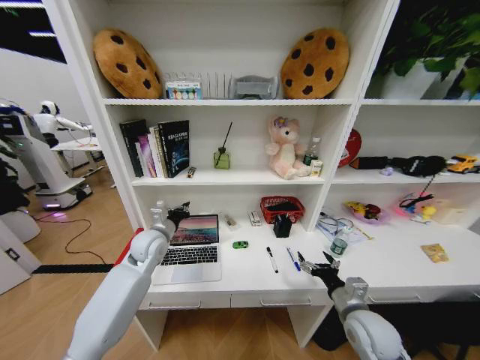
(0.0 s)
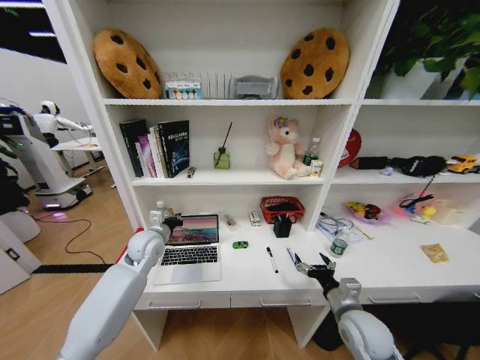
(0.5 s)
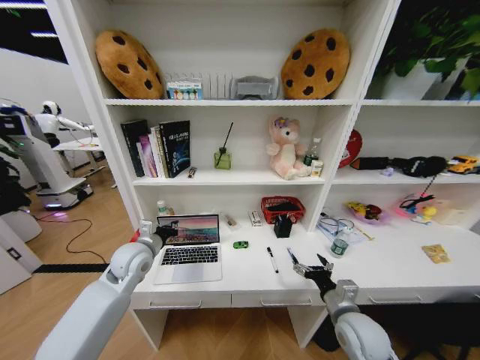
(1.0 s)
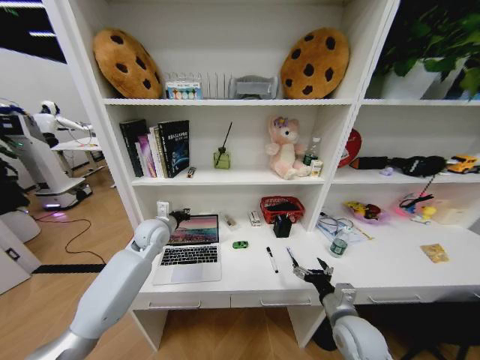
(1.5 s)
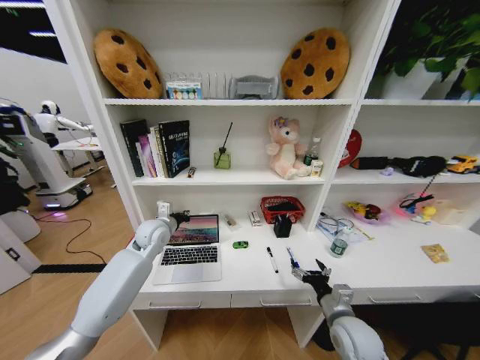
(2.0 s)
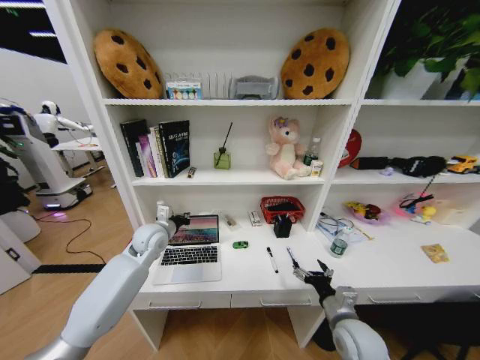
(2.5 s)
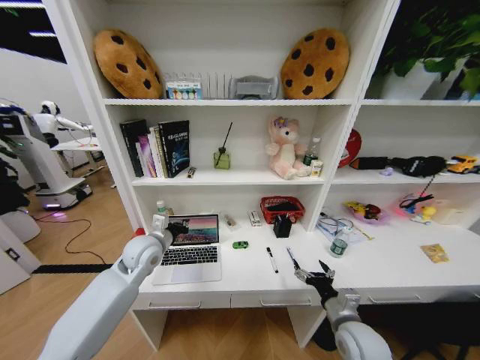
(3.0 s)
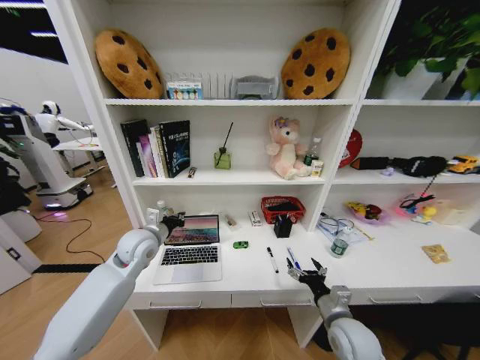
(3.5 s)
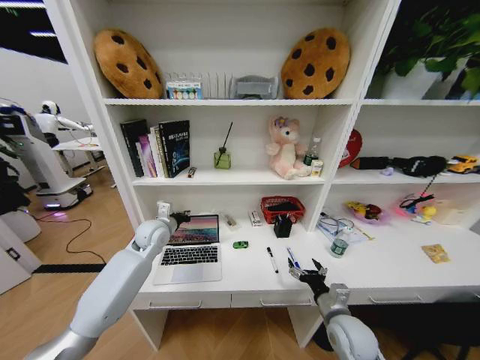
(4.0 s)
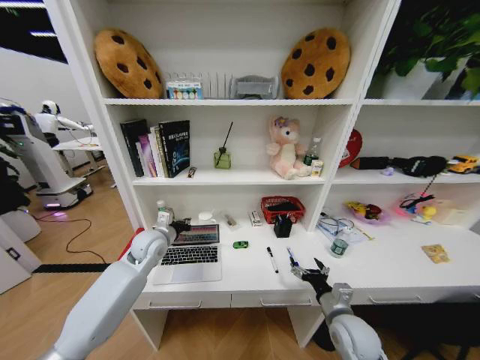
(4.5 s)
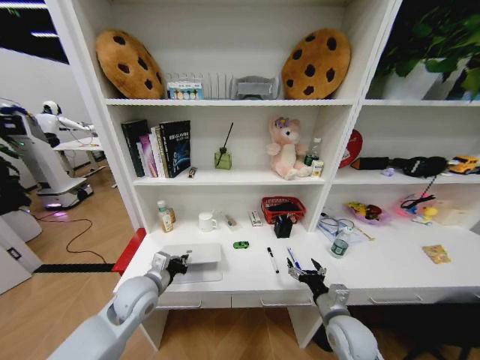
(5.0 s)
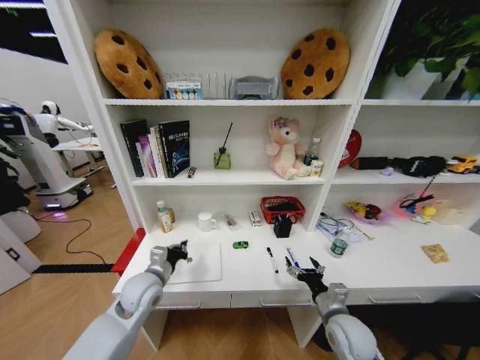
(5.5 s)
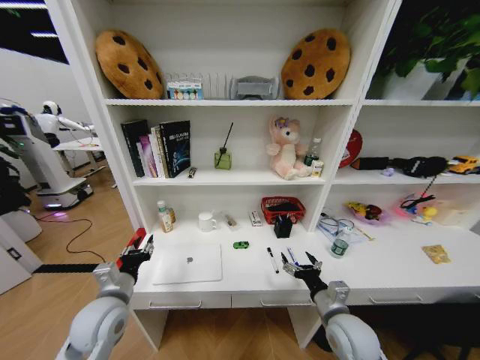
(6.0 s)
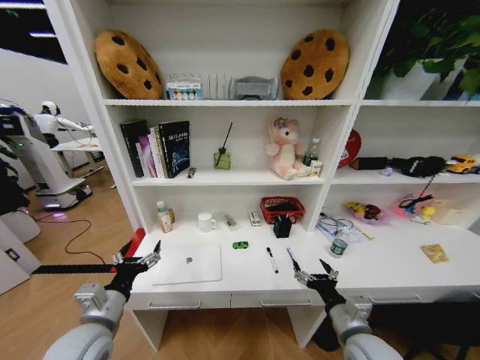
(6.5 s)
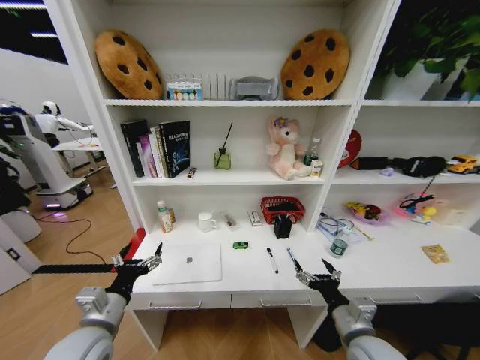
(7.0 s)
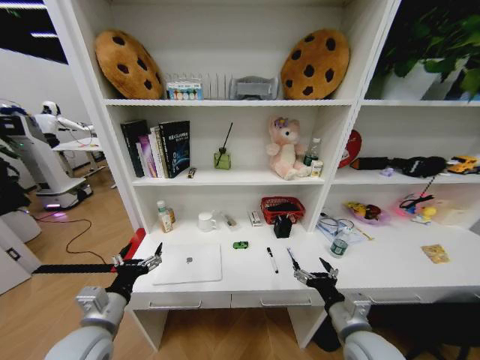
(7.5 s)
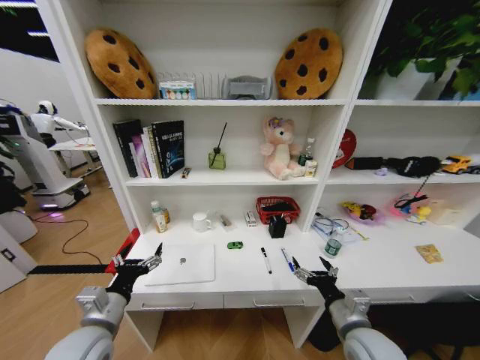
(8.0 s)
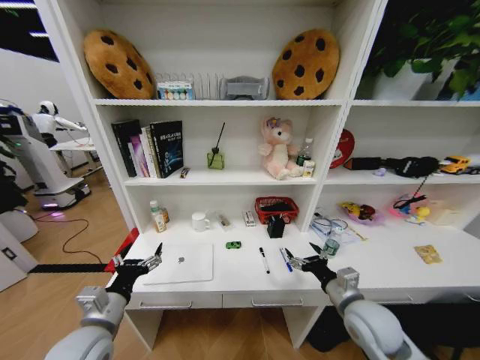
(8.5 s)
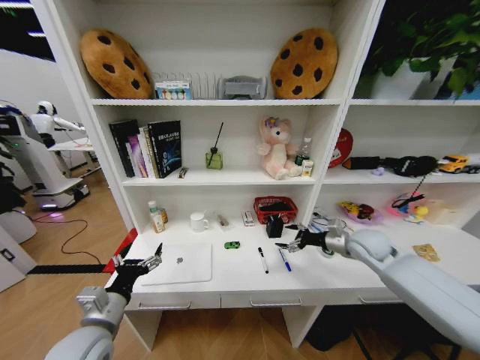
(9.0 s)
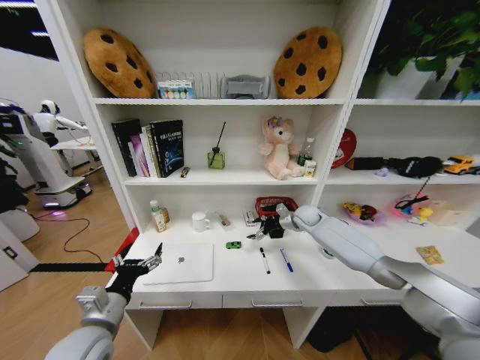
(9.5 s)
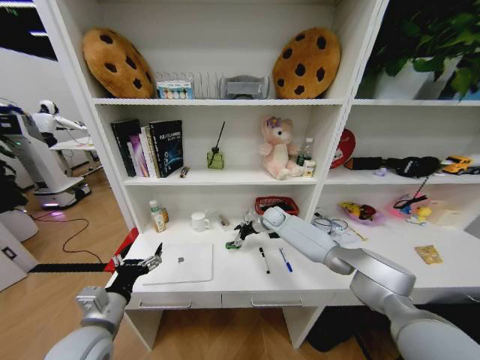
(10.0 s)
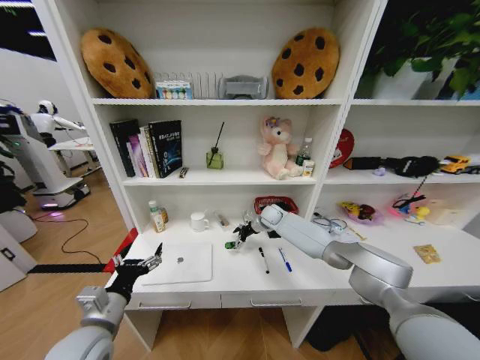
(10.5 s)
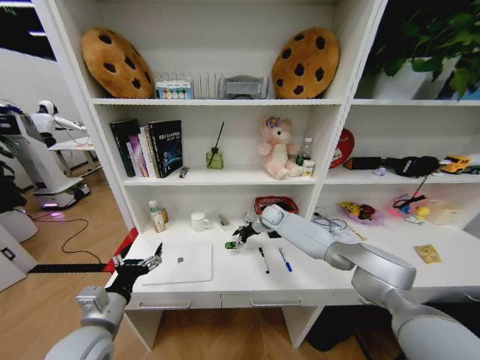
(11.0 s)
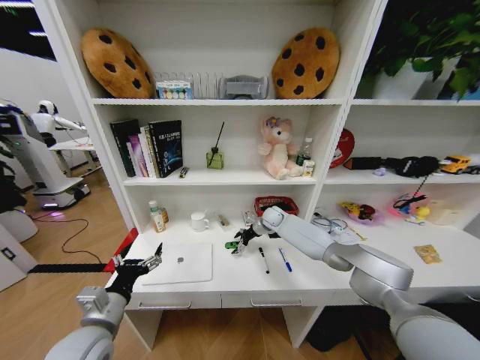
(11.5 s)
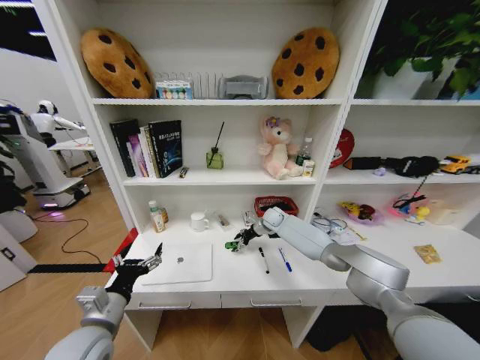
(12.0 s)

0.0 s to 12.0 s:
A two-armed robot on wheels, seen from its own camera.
Task of the whole recording: Organize the objects on the table.
0.0 to 2.0 s: The grippers make only small movements.
4.0 to 6.0 s: The left gripper shifts some 20 cm backward, and opens up.
6.0 to 8.0 s: The left gripper is displaced backward by approximately 5 cm, and opens up.
8.0 to 10.0 s: The right gripper goes about 40 cm forward.
10.0 to 12.0 s: The grippers move only a little.

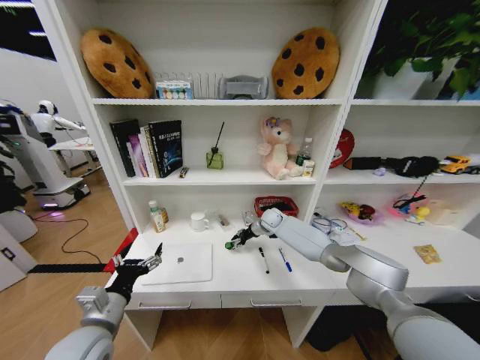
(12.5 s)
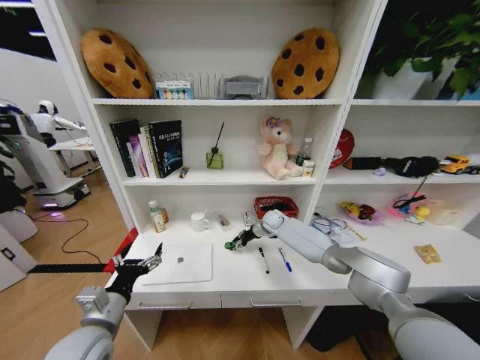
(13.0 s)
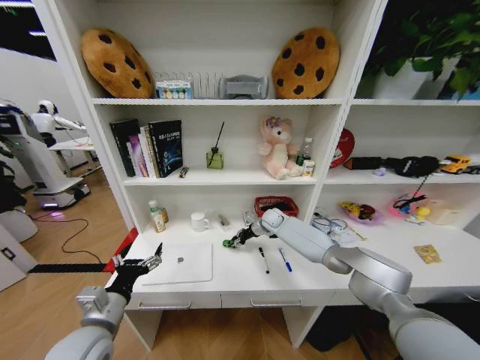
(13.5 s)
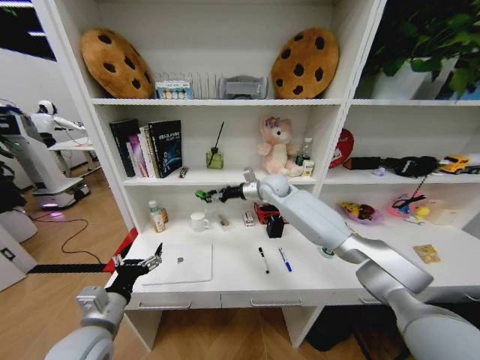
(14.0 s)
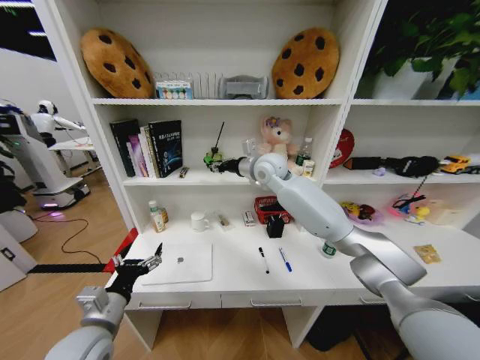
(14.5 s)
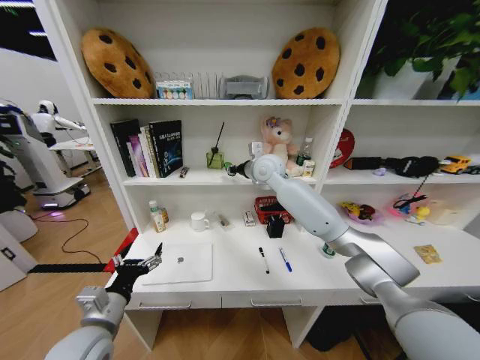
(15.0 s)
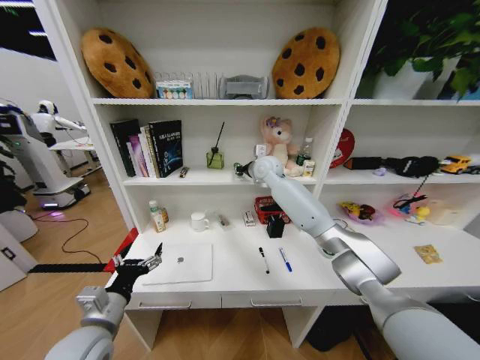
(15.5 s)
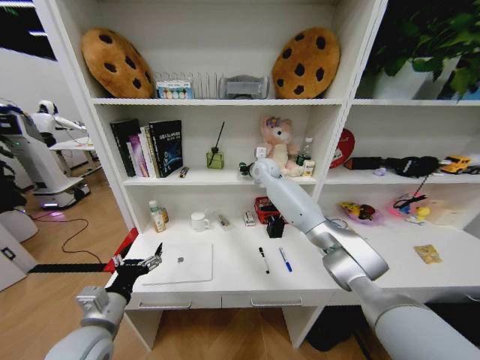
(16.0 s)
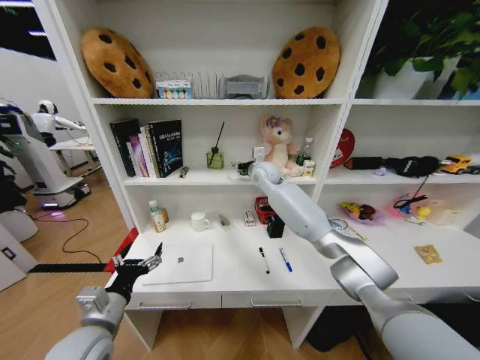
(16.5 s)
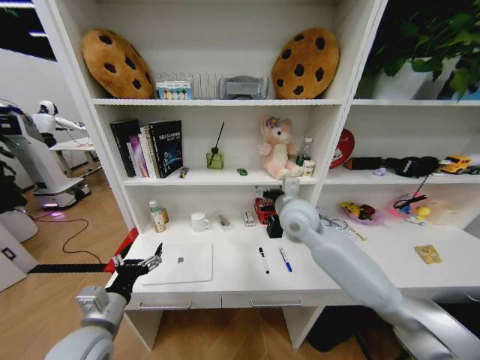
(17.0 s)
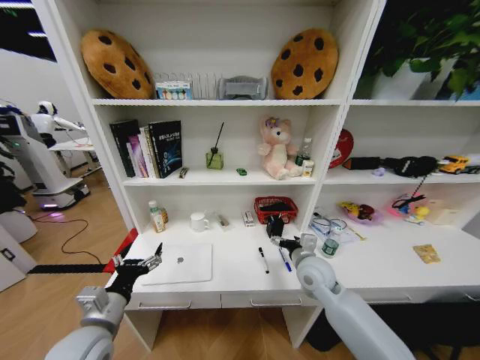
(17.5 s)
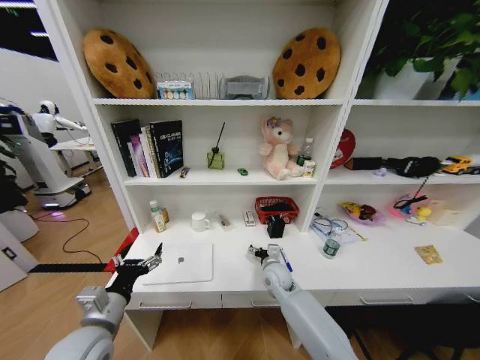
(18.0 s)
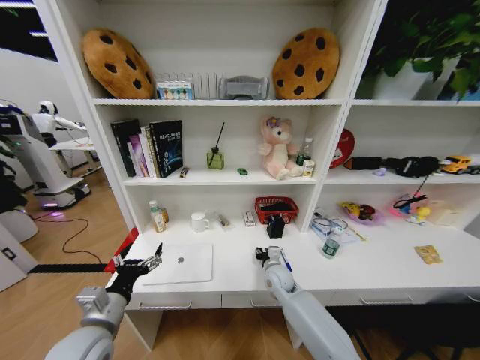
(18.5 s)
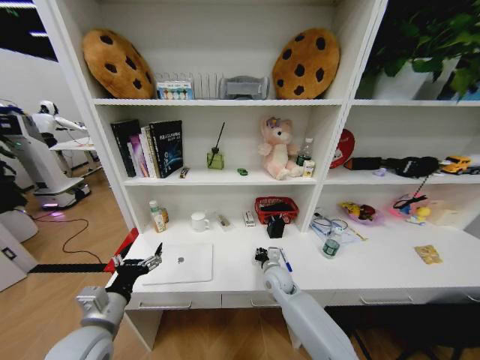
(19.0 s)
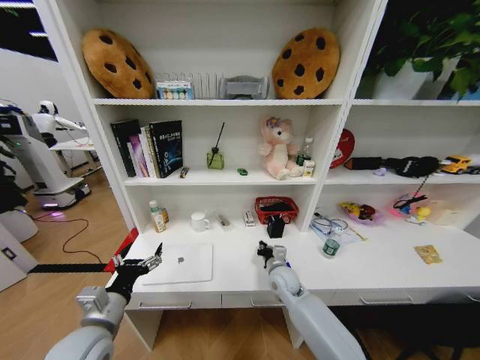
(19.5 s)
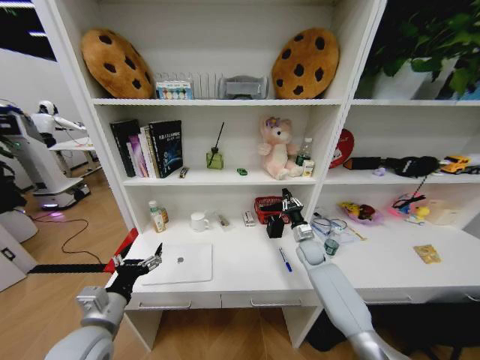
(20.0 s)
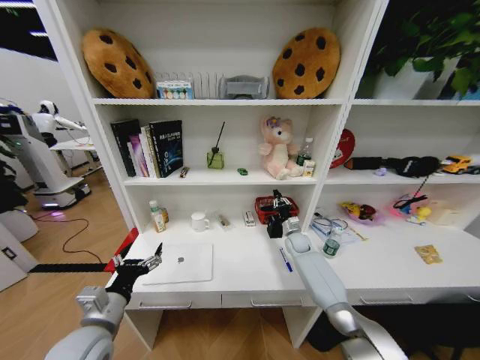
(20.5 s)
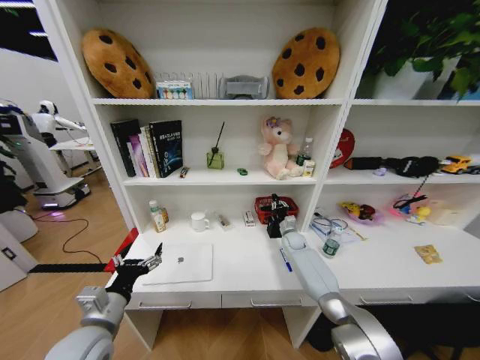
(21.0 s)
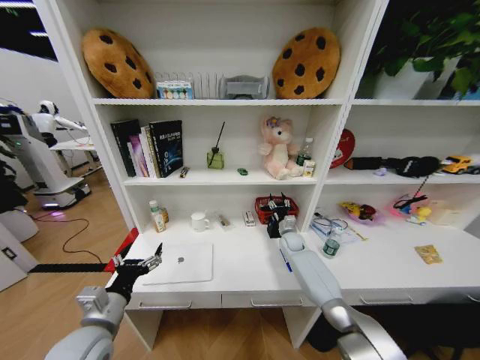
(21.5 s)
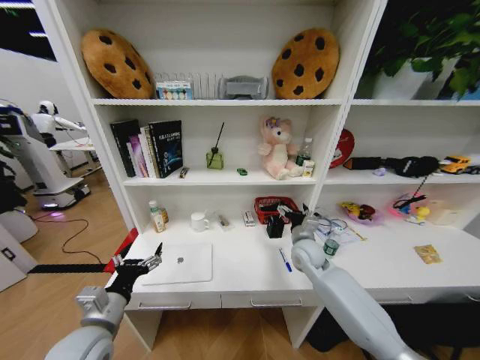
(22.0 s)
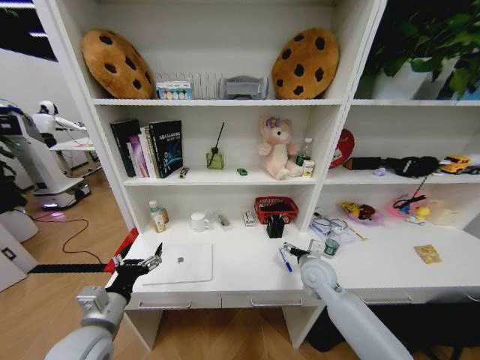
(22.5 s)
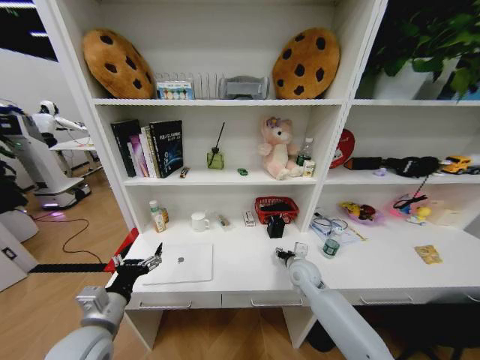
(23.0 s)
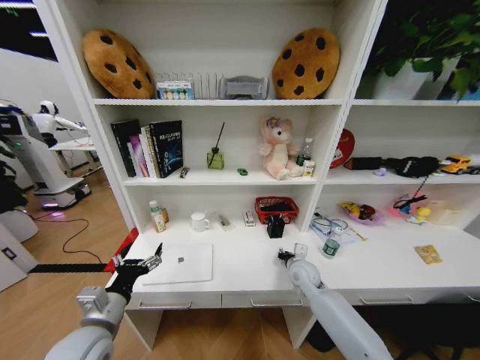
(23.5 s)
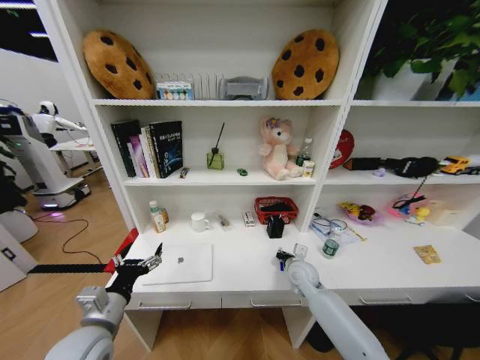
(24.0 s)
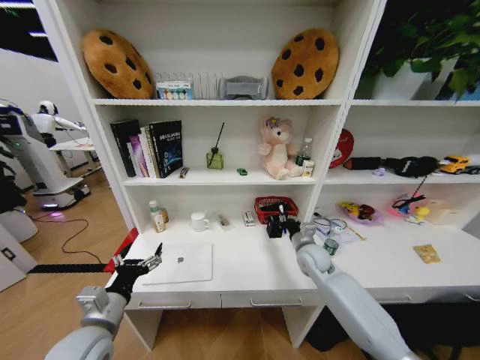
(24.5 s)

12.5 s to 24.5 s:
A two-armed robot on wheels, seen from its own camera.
Task of the whole recording: Organize the objects on the table.
12.5 to 14.5 s: The right gripper goes some 25 cm upward.
14.5 to 16.5 s: The right gripper moves forward and downward, roughly 10 cm, and opens its fingers.
16.5 to 18.5 s: The right gripper is displaced downward and backward by roughly 35 cm, and closes its fingers.
18.5 to 20.5 s: The right gripper moves forward and to the right, roughly 20 cm, and closes up.
20.5 to 22.5 s: The right gripper is displaced backward and upward by roughly 20 cm, and opens its fingers.
22.5 to 24.5 s: The right gripper moves forward, roughly 5 cm, and closes its fingers.

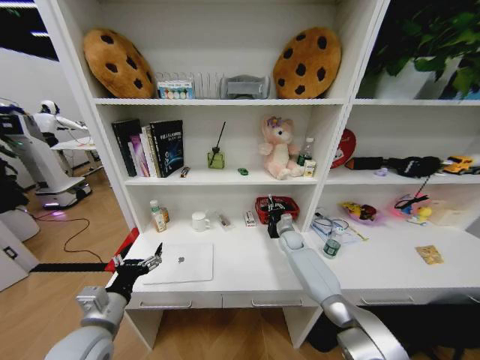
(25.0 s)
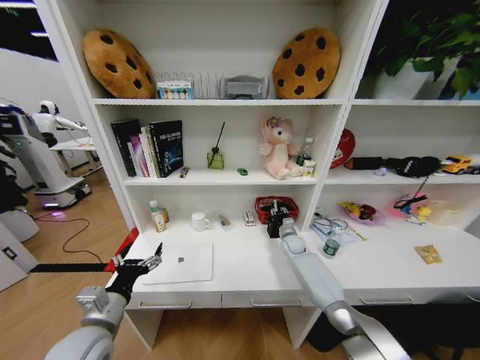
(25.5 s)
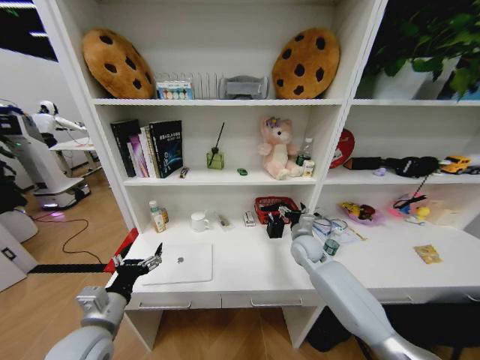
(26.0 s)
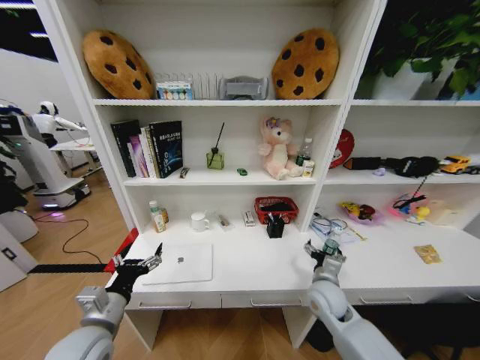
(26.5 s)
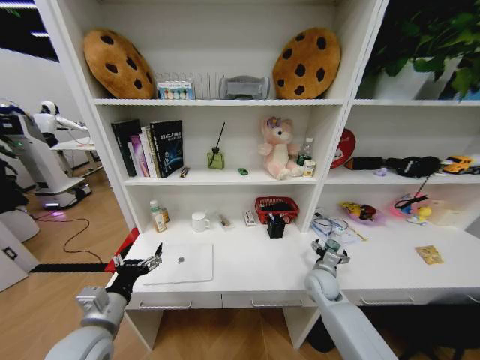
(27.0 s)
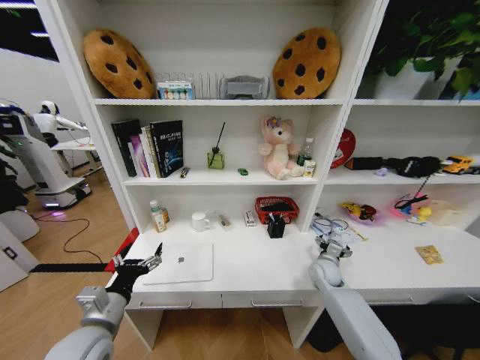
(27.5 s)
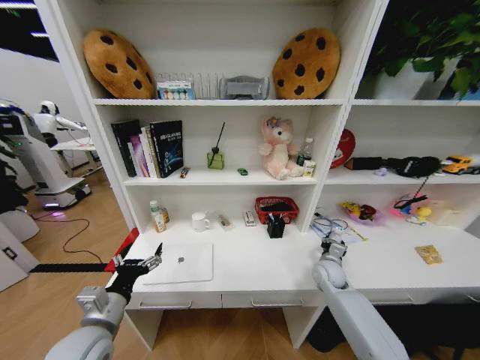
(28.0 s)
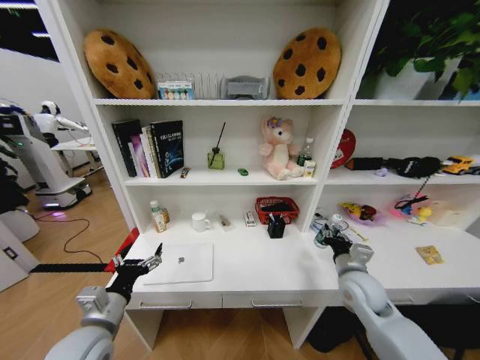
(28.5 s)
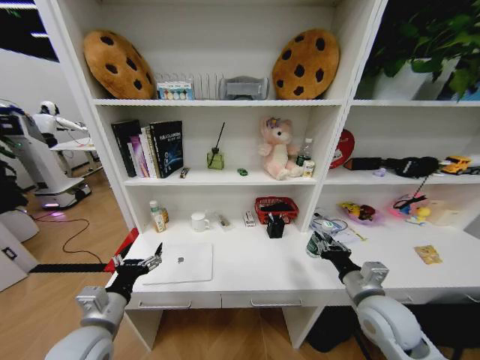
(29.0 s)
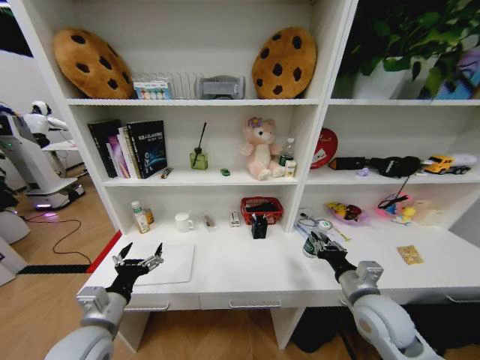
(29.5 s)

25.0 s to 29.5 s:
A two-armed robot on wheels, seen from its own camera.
Task of the whole recording: Organize the objects on the table.
25.0 to 27.0 s: The right gripper heads backward, covering approximately 20 cm, and opens up.
27.0 to 29.5 s: The right gripper goes approximately 20 cm backward and upward, and closes its fingers.
